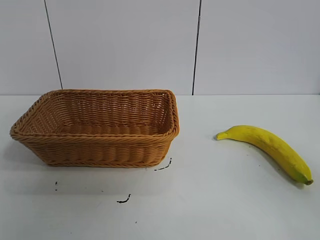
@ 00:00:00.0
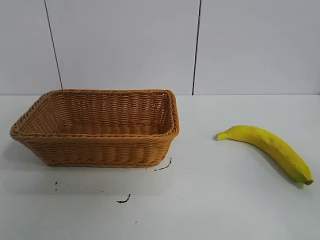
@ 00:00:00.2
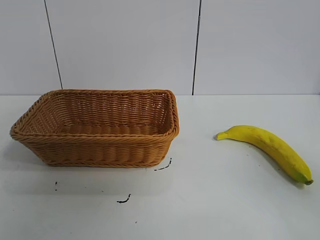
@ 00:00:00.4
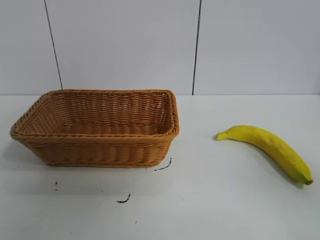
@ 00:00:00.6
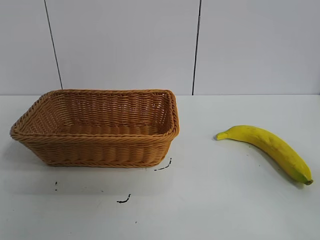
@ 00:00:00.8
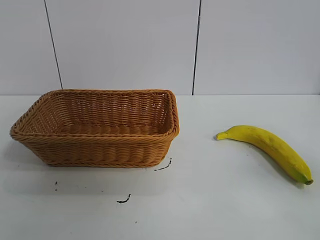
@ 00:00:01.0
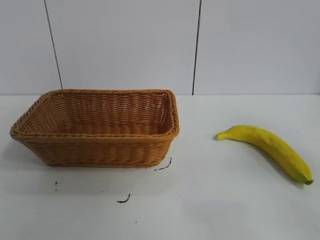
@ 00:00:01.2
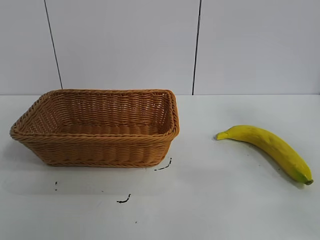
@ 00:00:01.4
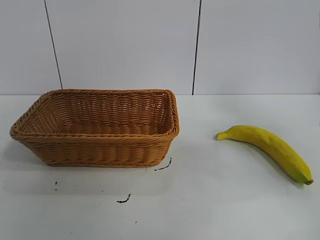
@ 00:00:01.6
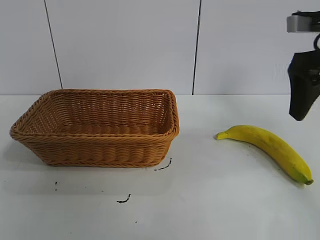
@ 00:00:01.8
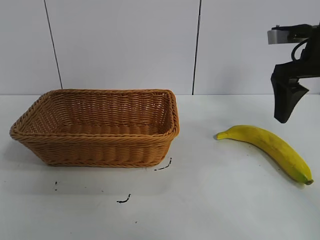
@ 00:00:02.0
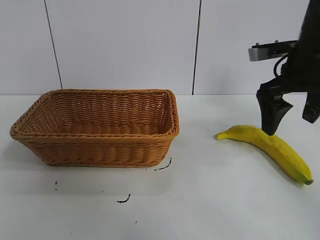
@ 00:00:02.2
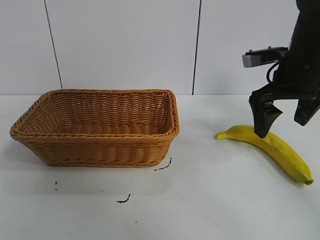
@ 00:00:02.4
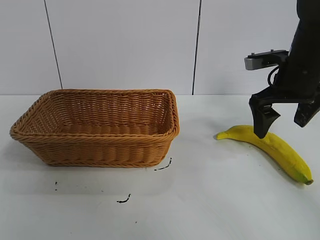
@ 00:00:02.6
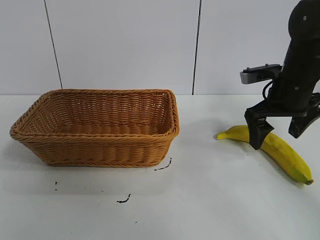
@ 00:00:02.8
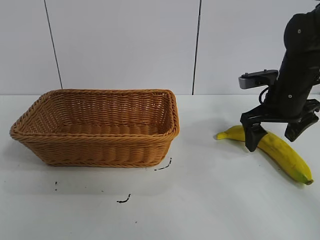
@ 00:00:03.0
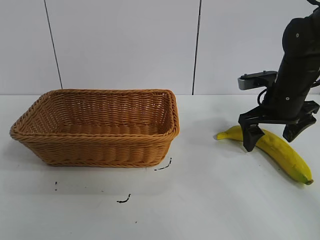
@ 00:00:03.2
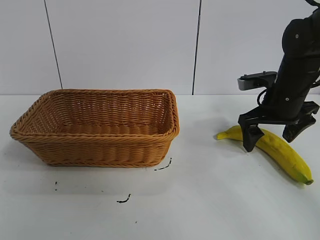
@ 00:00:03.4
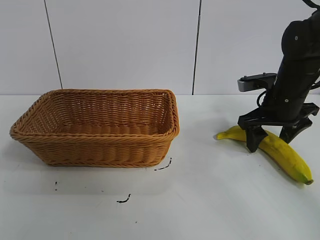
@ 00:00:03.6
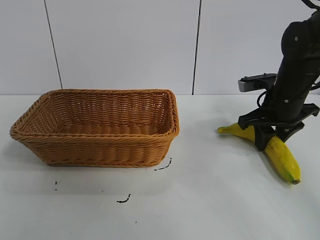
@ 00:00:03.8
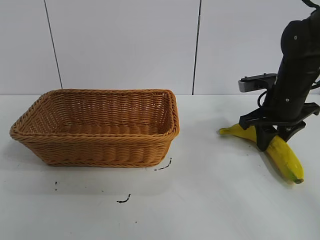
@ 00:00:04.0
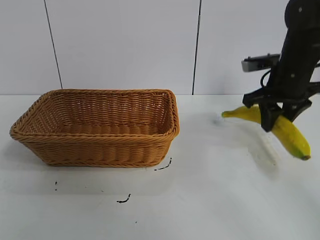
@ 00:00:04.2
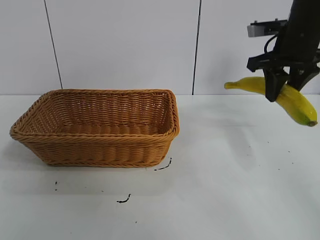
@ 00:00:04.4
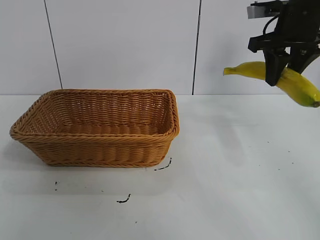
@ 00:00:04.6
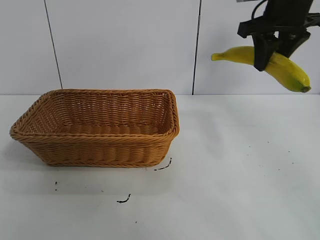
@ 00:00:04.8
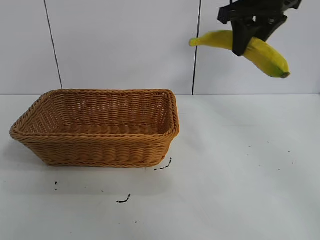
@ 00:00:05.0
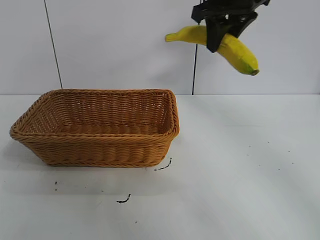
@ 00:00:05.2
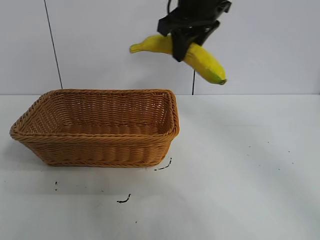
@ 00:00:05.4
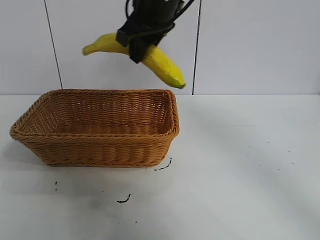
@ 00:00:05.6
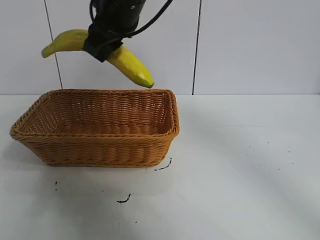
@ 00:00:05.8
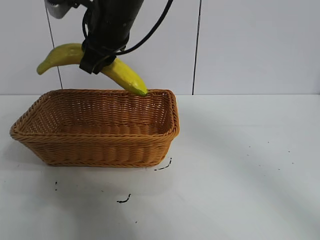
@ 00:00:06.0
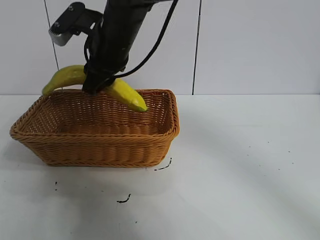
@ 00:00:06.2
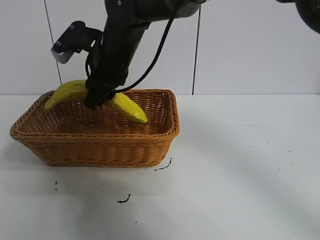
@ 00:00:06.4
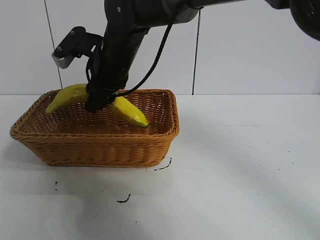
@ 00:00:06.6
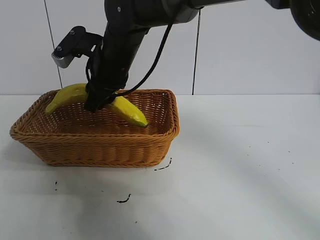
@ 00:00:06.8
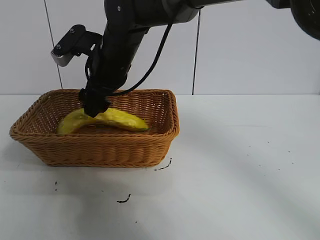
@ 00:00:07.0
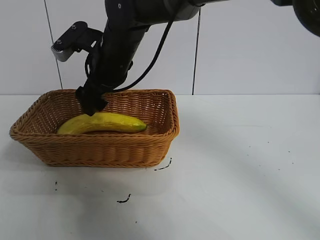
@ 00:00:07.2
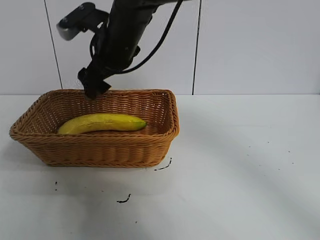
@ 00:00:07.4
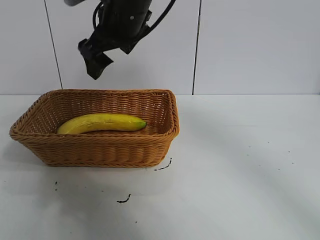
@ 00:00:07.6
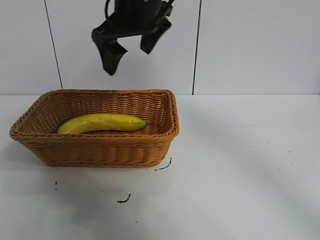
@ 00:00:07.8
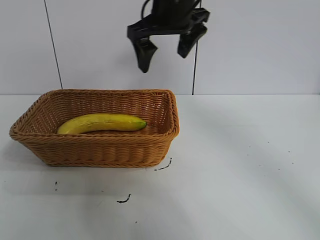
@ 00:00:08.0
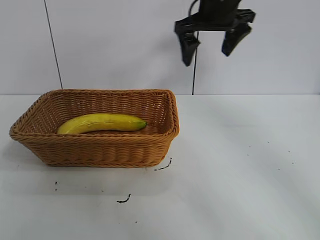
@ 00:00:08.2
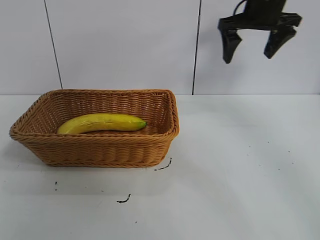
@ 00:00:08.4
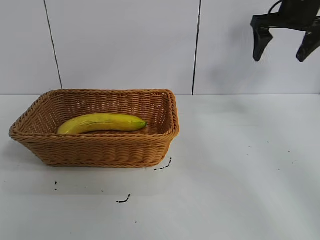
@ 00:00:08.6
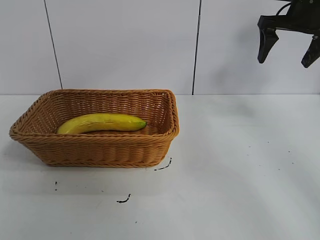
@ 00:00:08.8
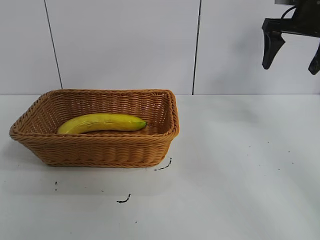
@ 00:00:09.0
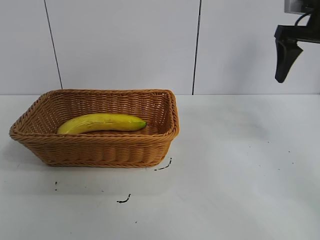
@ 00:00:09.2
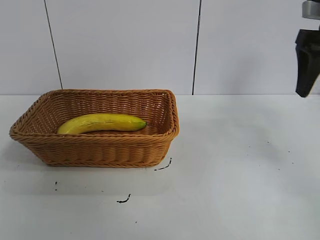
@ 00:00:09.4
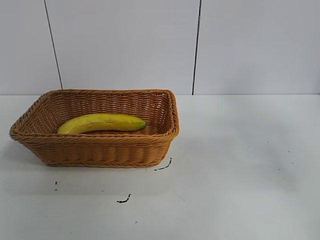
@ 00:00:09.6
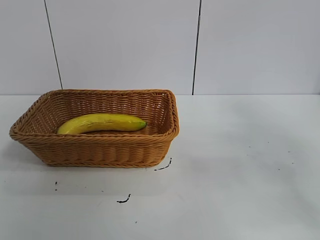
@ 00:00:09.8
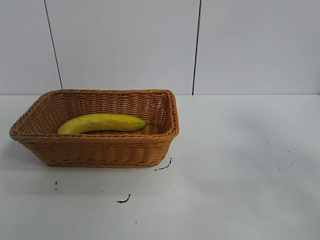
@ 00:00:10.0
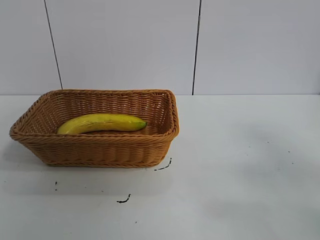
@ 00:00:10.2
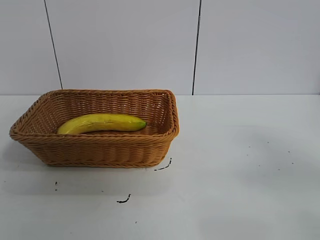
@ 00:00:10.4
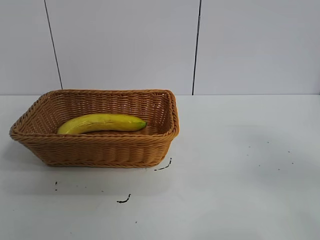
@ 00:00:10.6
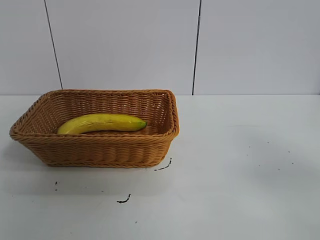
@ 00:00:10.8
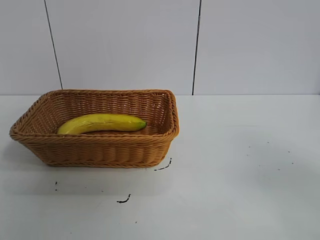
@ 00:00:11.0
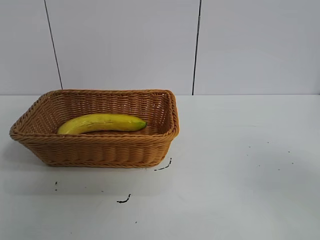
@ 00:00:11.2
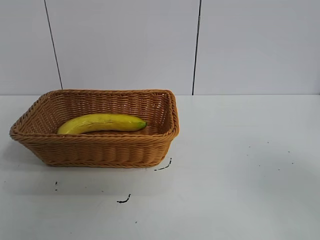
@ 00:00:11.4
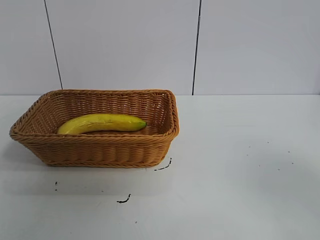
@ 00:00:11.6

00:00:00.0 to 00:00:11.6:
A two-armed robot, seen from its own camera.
Task of the whole recording: pick up the banana and put it into the basket.
Step, 00:00:00.8 to 00:00:03.8: Grasp the banana with right gripper.
Step, 00:00:04.0 to 00:00:06.8: Place the banana in the basket with right gripper.
